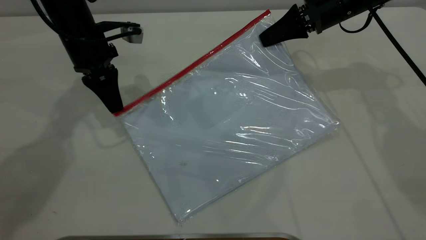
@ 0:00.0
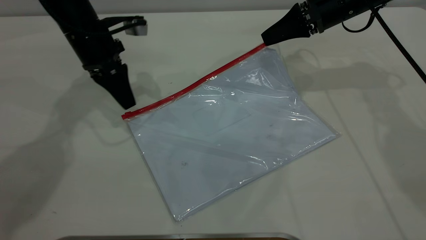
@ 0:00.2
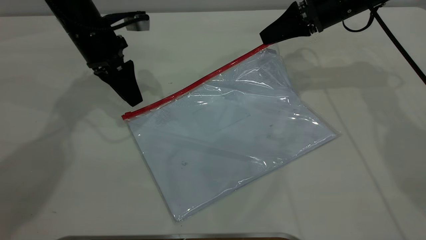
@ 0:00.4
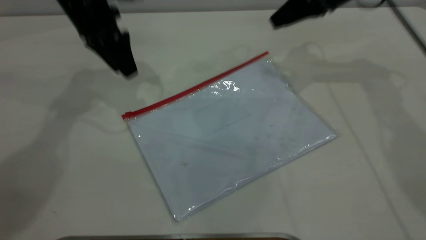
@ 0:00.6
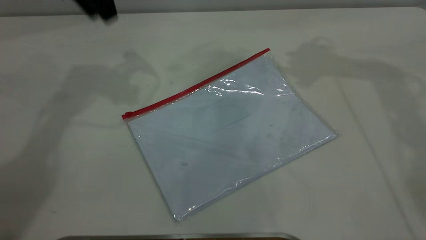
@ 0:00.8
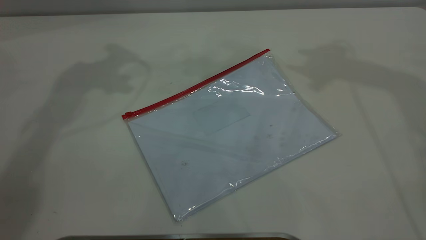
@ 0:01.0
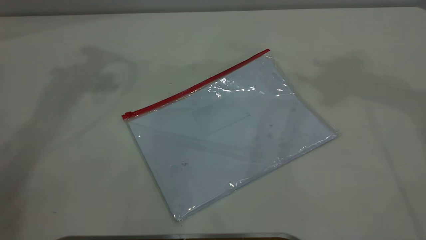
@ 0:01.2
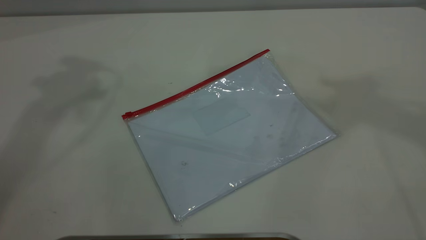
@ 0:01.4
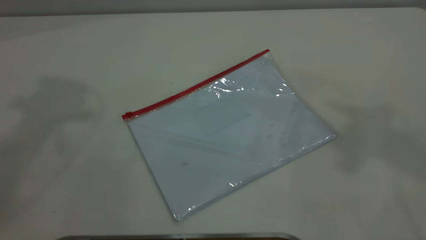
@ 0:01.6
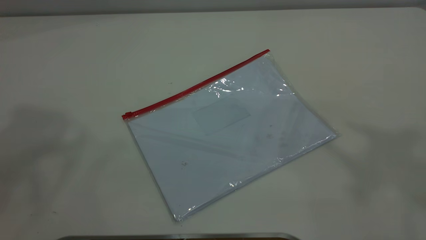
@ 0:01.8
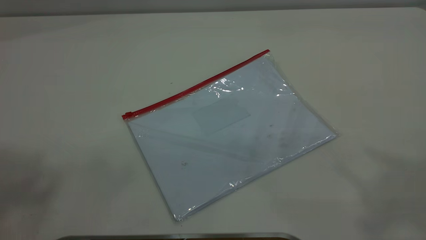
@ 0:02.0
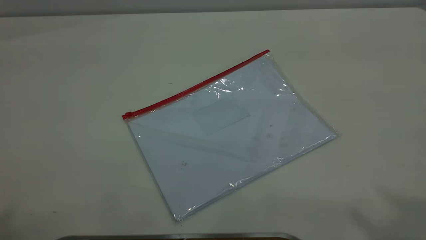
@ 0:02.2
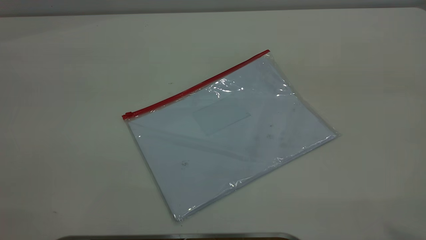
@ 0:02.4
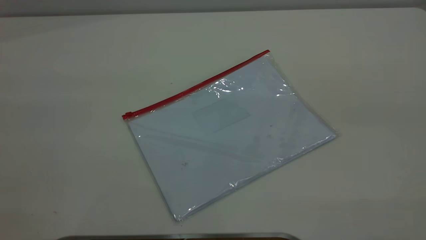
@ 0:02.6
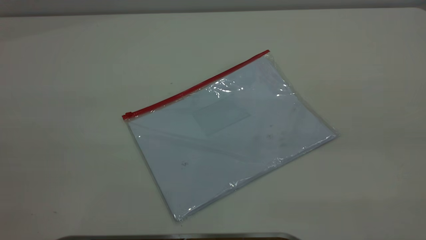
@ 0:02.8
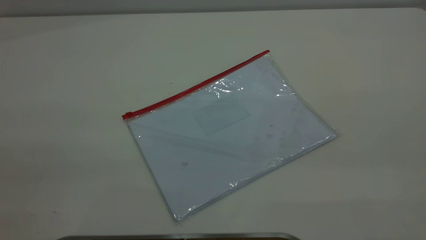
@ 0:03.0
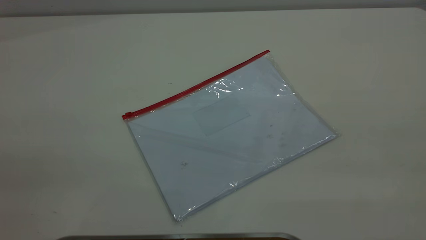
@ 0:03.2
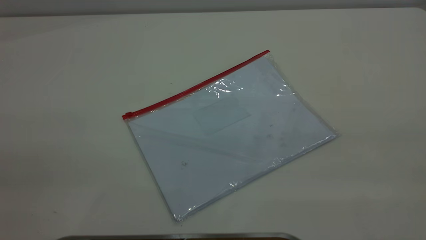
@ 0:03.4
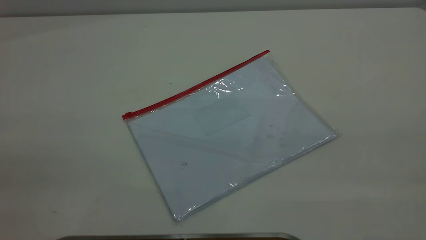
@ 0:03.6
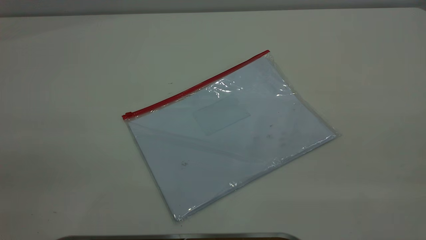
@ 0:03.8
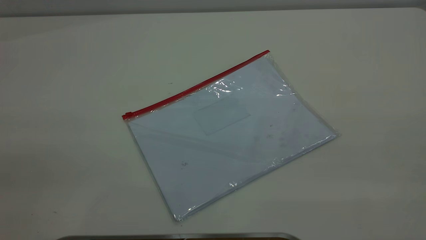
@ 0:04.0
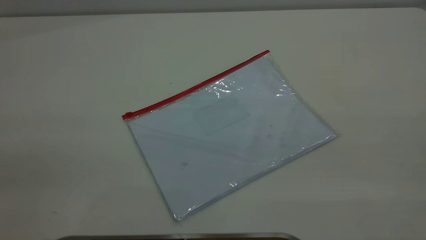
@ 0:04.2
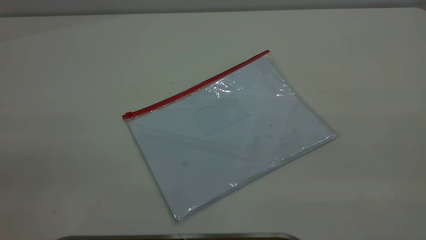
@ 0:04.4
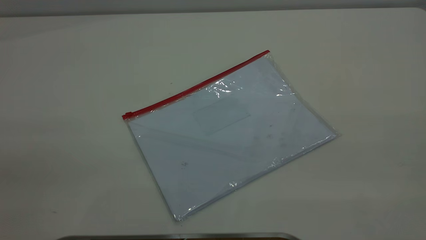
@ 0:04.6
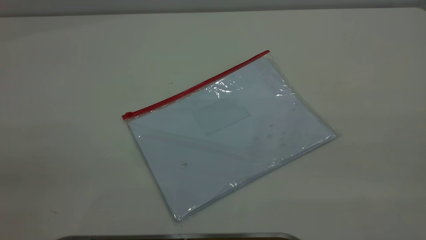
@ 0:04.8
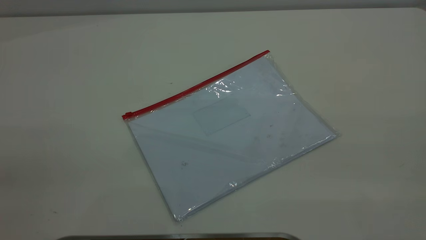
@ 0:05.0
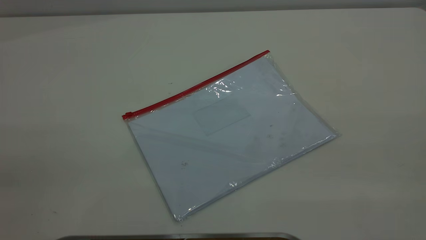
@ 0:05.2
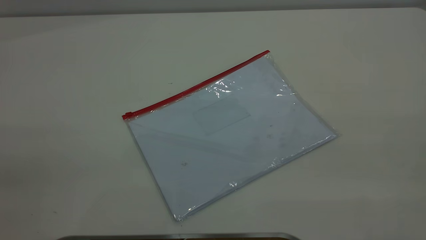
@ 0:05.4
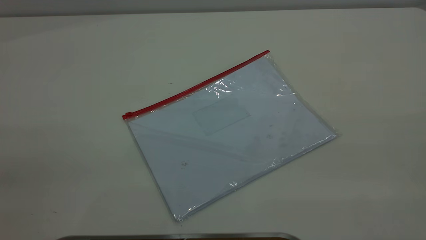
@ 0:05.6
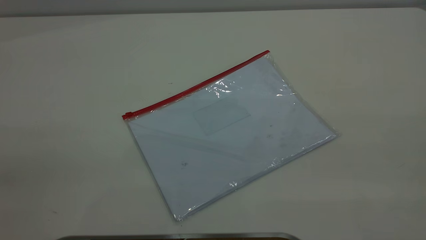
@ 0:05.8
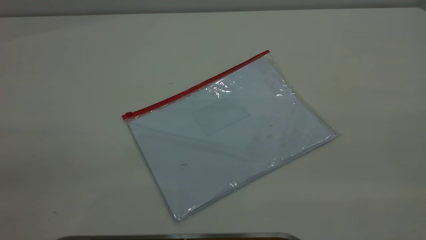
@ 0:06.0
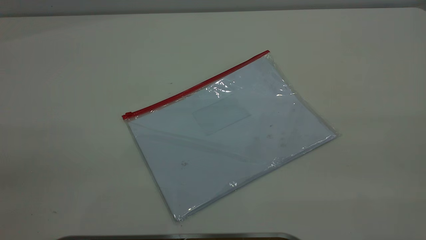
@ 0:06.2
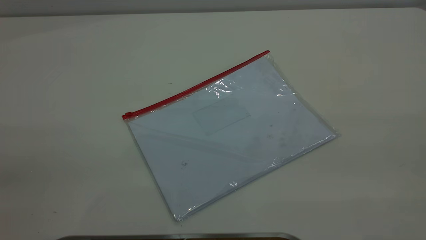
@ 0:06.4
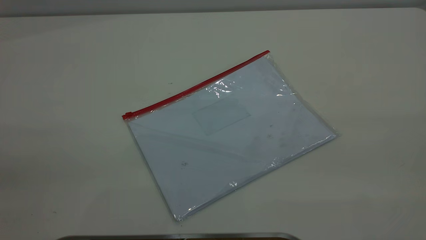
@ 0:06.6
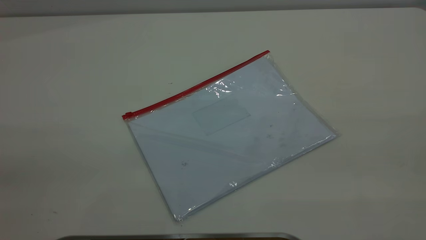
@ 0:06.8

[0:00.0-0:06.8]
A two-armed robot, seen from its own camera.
Step, 0:00.2 to 0:01.0: Place the transparent plastic bag.
0:00.0 to 0:01.4: Both grippers move upward, roughly 40 cm. The left gripper opens its fingers, while the right gripper opens up.
0:05.4 to 0:06.8: The two grippers keep their place.

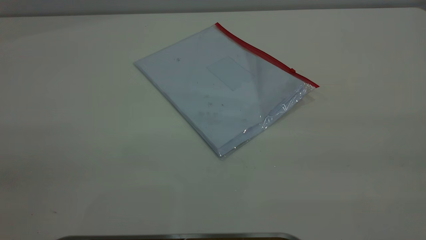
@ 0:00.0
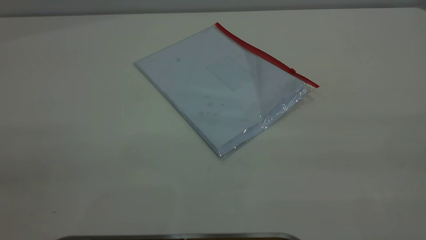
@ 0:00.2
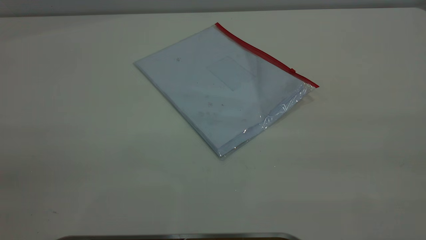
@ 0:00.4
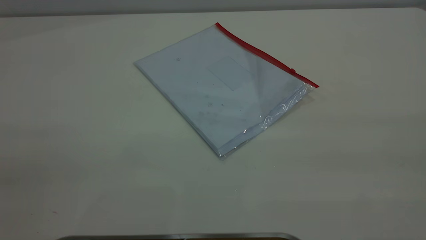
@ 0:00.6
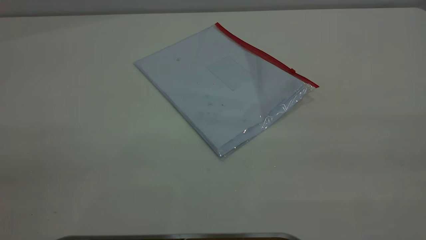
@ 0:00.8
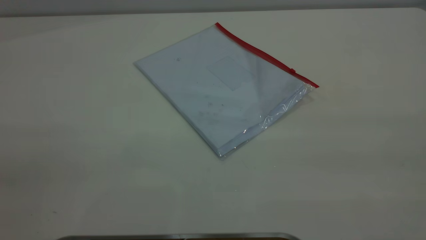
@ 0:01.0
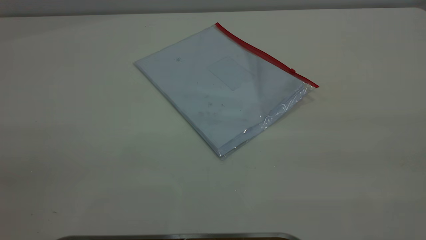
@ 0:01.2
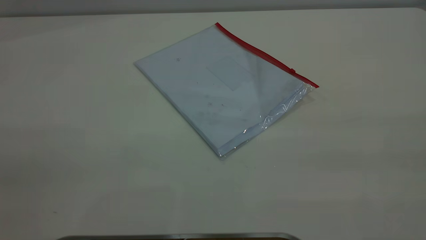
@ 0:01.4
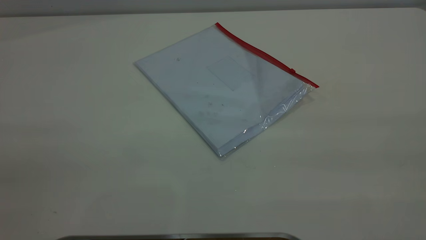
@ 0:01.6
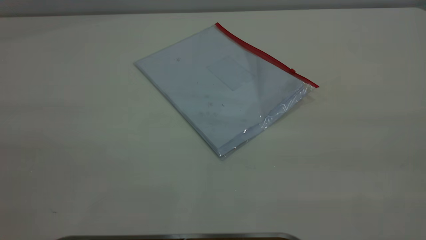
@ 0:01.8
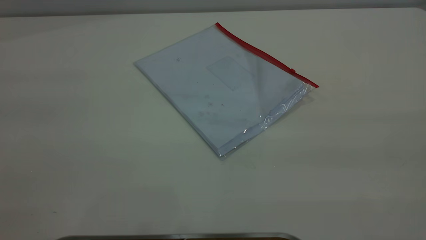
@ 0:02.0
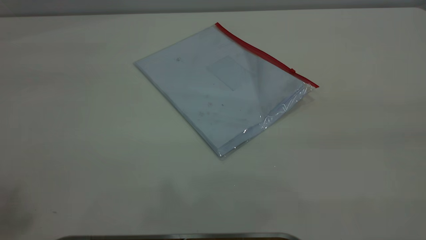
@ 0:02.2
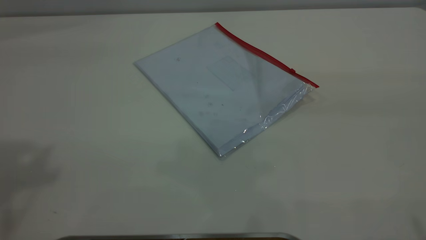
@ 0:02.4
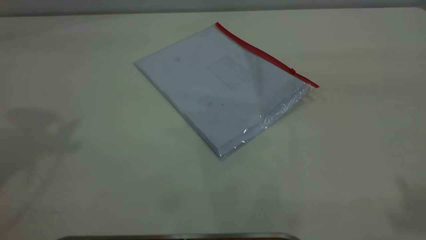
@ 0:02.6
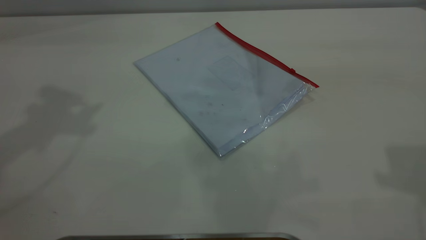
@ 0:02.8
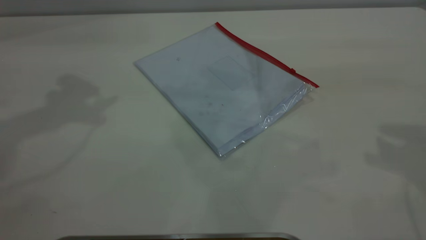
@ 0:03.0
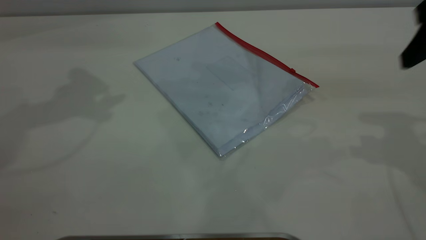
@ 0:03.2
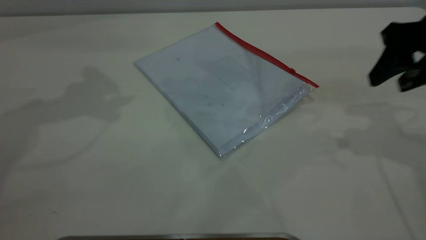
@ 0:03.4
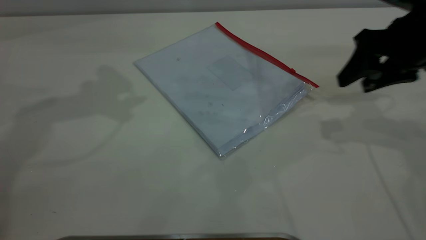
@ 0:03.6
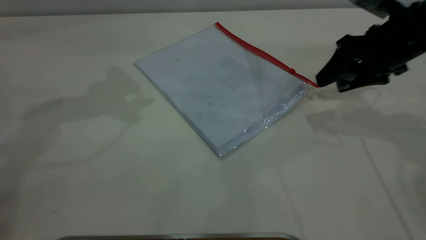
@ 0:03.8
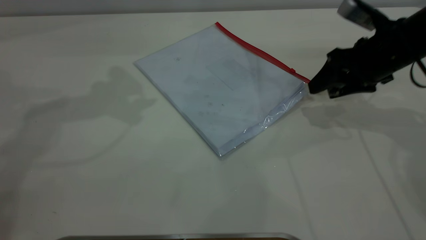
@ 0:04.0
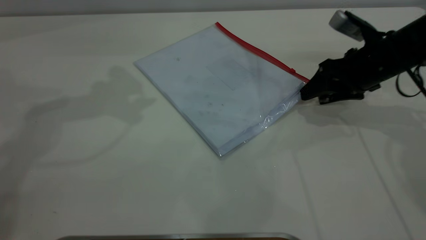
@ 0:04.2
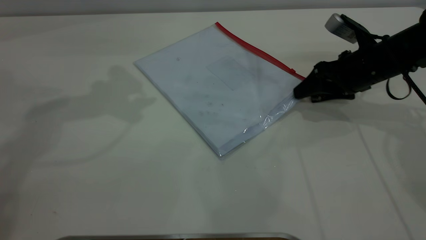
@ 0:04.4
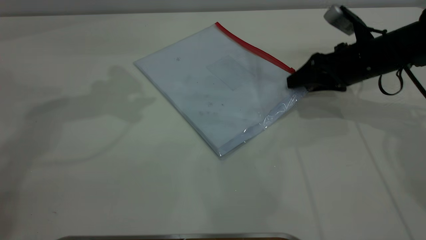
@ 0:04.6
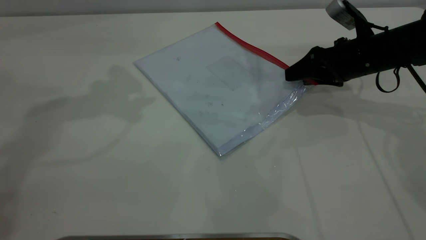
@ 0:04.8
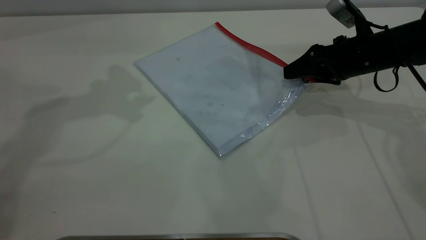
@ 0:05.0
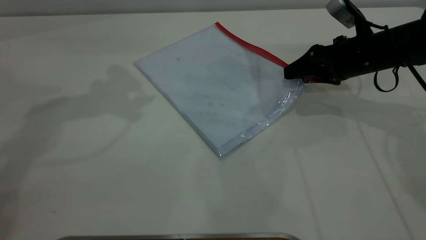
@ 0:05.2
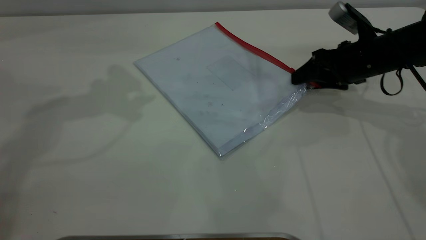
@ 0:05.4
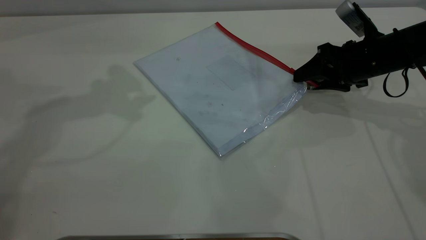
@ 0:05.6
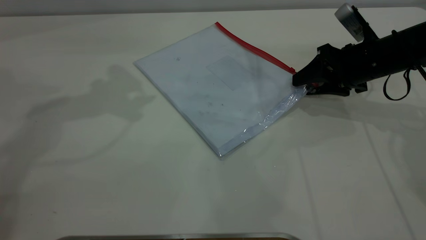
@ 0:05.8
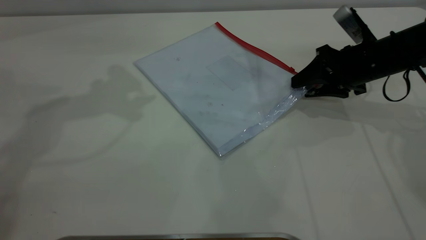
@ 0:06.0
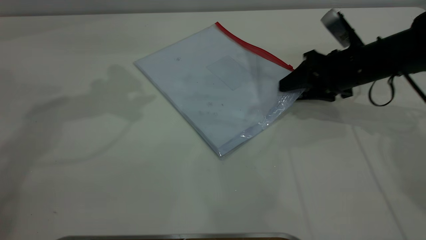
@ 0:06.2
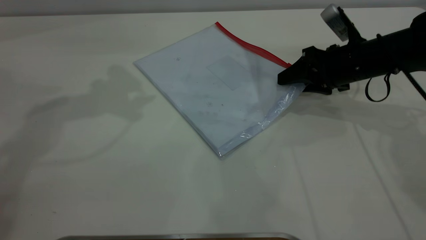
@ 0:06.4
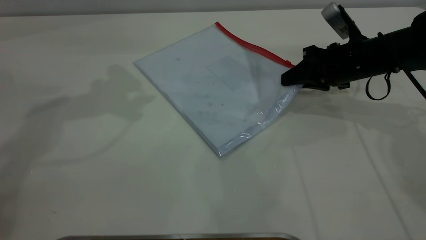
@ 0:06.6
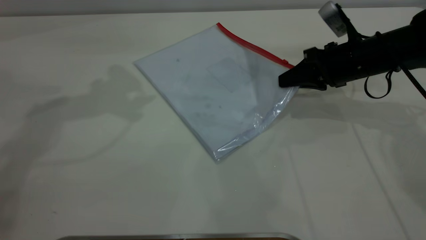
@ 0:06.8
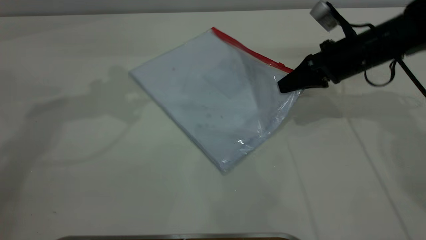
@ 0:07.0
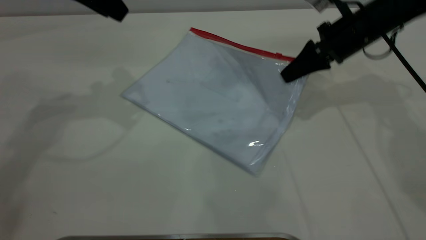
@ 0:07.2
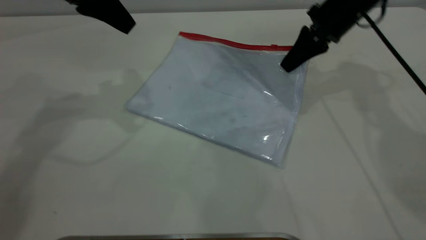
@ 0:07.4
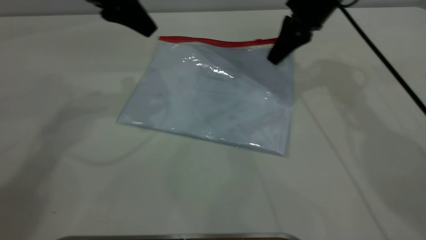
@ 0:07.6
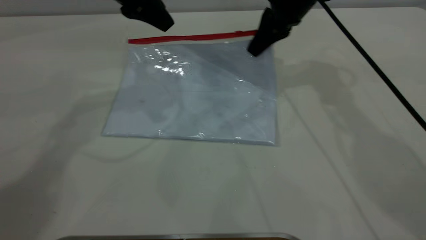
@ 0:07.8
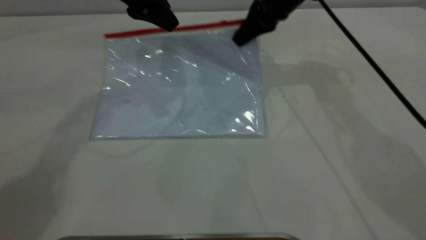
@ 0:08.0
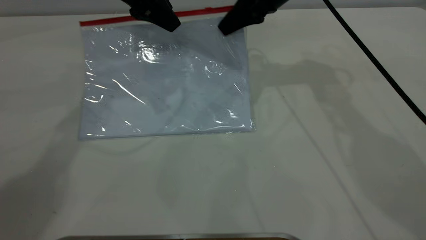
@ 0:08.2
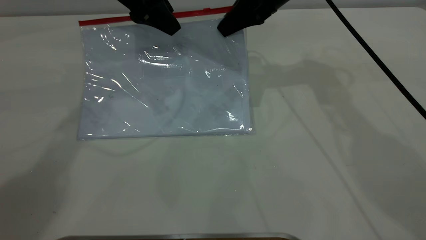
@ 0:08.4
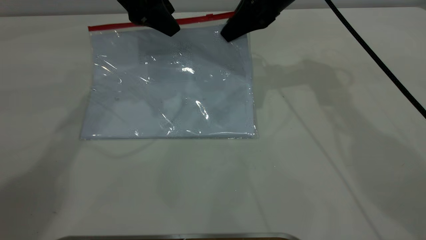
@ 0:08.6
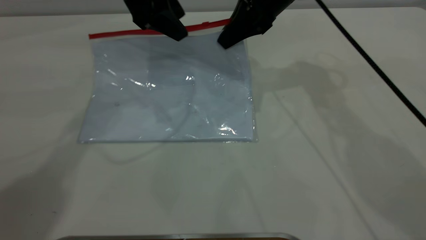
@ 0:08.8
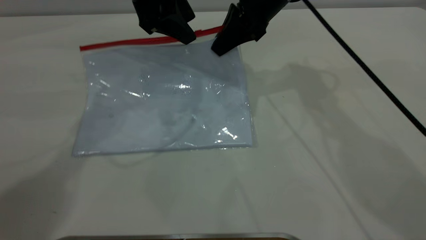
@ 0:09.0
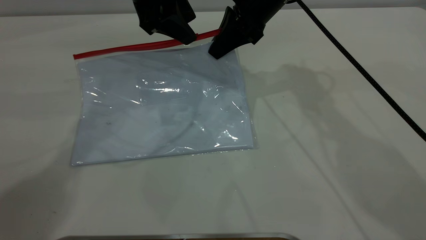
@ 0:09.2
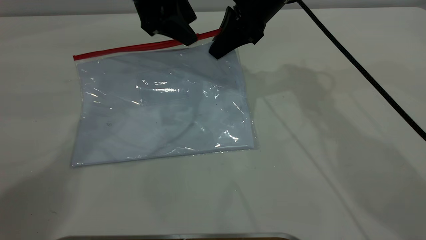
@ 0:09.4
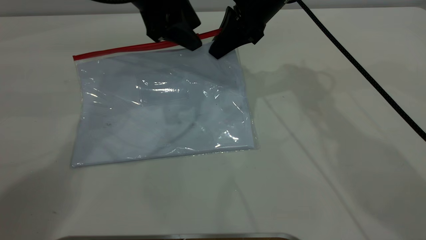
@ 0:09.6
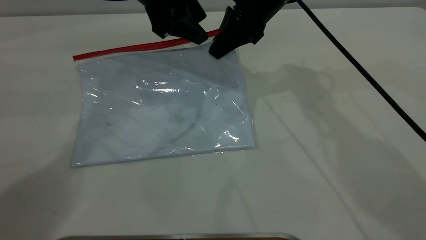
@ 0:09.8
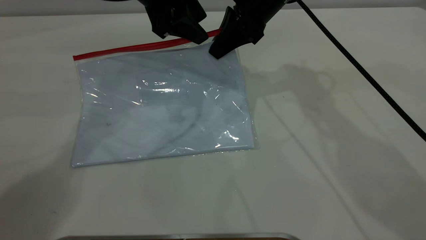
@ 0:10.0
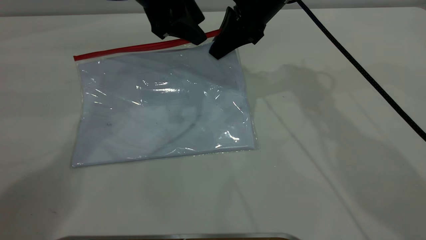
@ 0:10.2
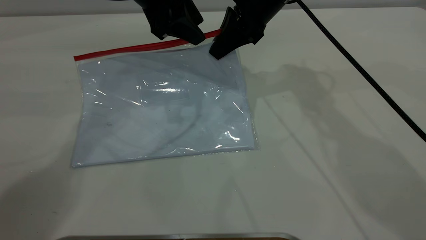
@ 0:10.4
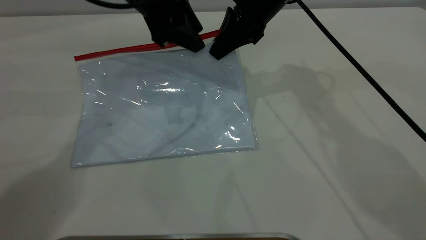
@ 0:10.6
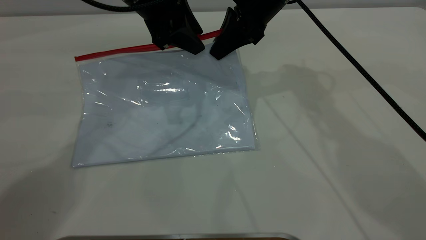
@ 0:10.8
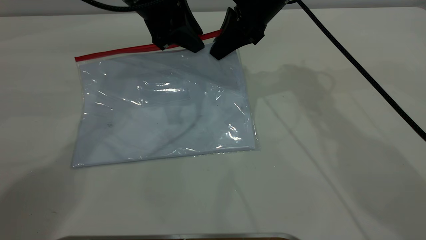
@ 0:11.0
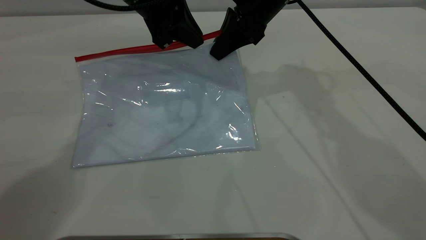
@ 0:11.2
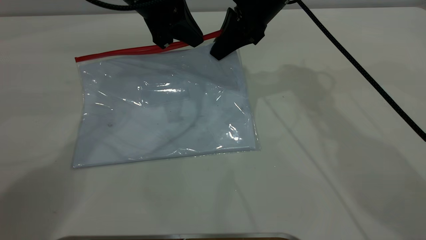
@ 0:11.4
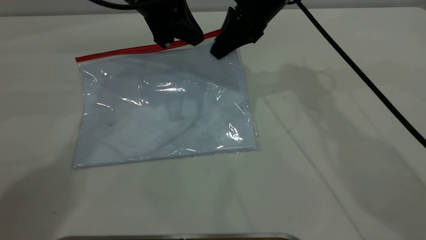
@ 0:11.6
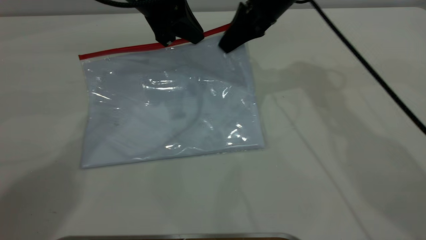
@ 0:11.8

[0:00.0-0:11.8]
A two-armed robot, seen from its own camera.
Step, 0:00.0 to 0:07.6: Pick up the transparent plastic bag with the right gripper.
0:00.0 to 0:01.4: Both grippers stay about where they are.
0:03.0 to 0:04.4: The right gripper heads downward and forward, covering some 25 cm.
0:04.4 to 0:06.0: The grippers make only small movements.
0:06.0 to 0:07.4: The right gripper heads upward, forward and to the left, covering some 10 cm, and closes.
0:07.4 to 0:08.8: The left gripper is displaced to the right by approximately 10 cm. The right gripper shifts some 10 cm to the left.
0:08.8 to 0:10.4: The grippers make only small movements.
0:10.4 to 0:11.8: The left gripper closes.
